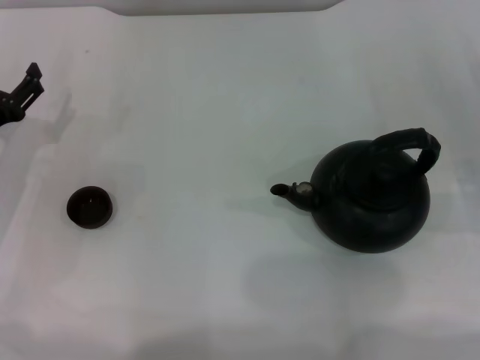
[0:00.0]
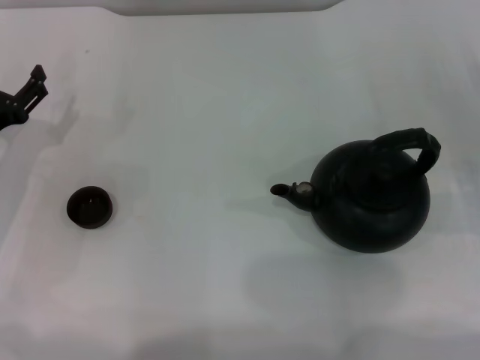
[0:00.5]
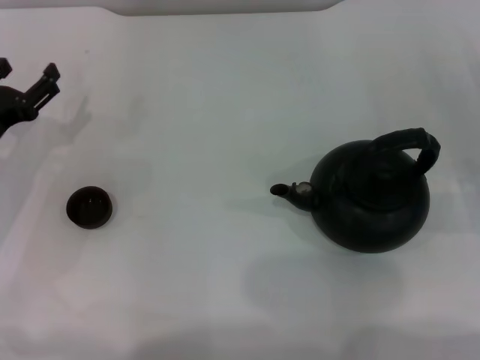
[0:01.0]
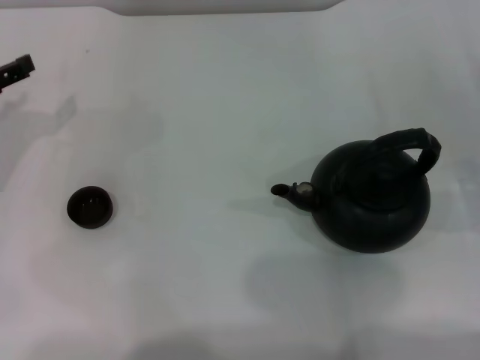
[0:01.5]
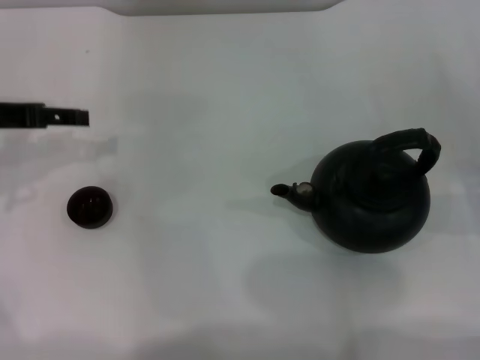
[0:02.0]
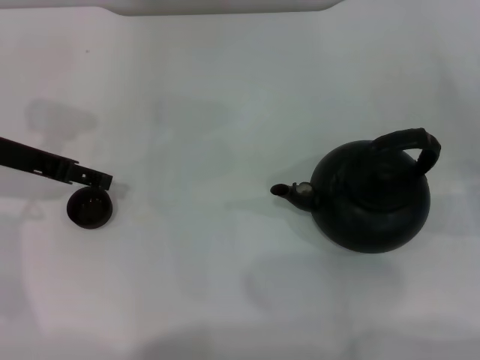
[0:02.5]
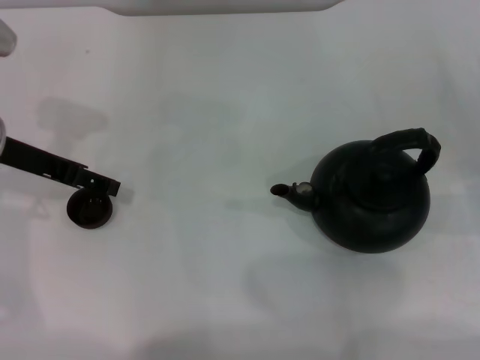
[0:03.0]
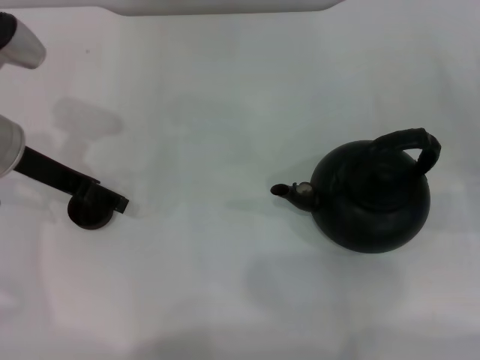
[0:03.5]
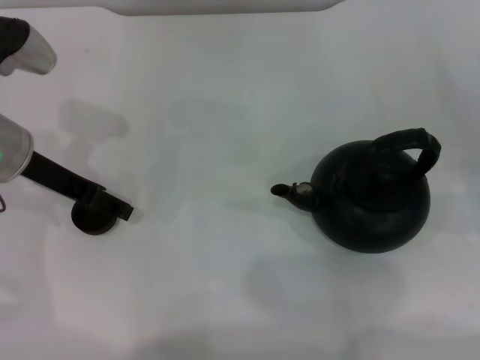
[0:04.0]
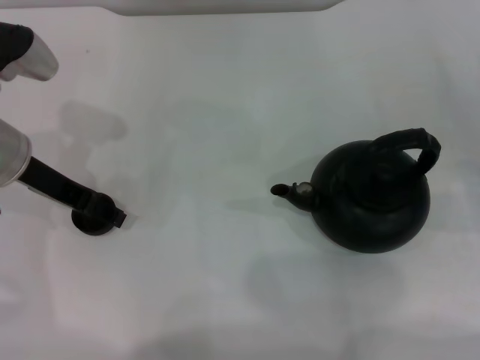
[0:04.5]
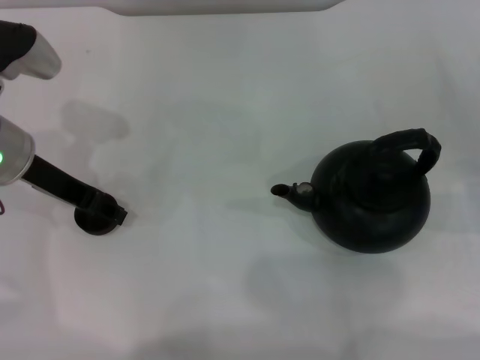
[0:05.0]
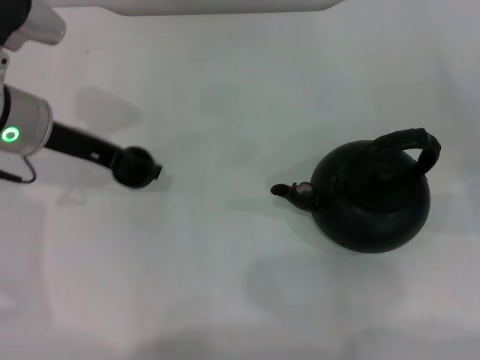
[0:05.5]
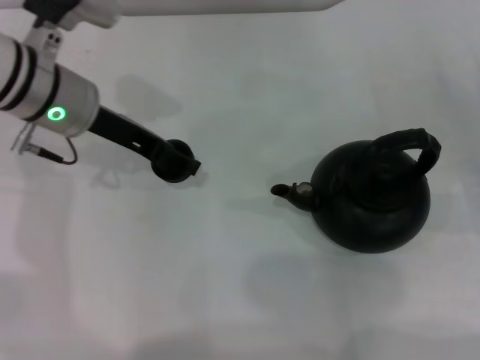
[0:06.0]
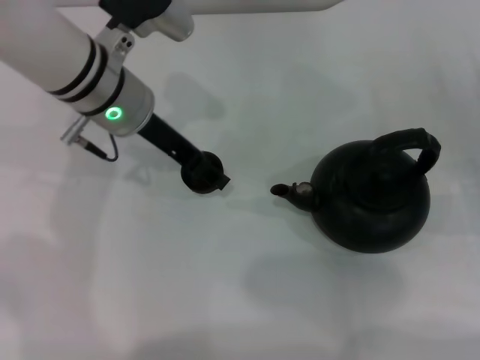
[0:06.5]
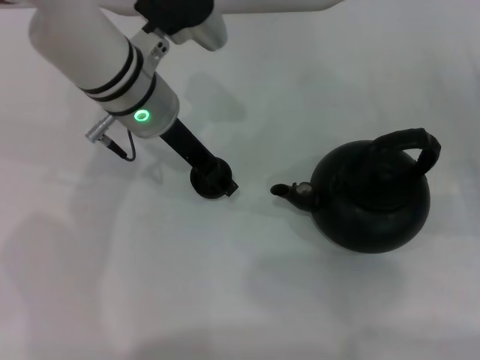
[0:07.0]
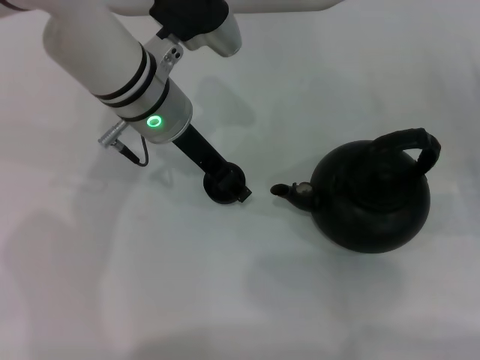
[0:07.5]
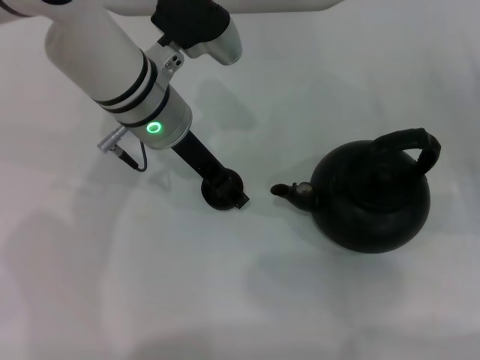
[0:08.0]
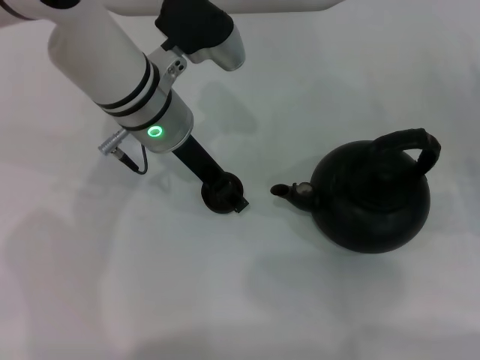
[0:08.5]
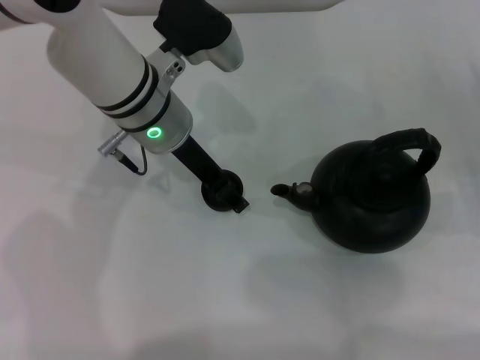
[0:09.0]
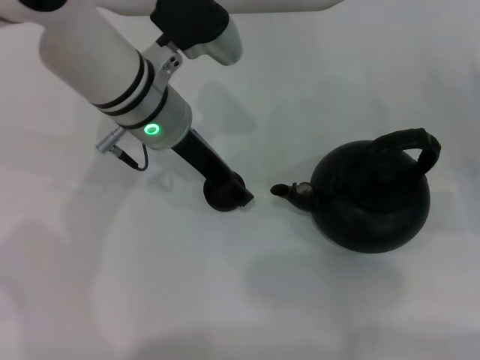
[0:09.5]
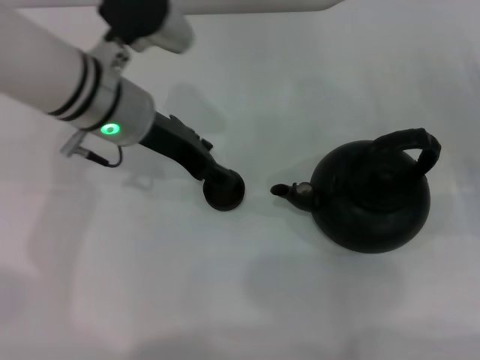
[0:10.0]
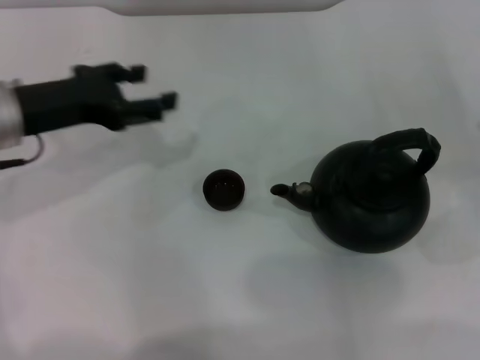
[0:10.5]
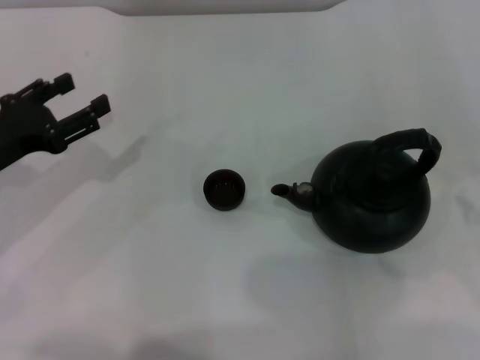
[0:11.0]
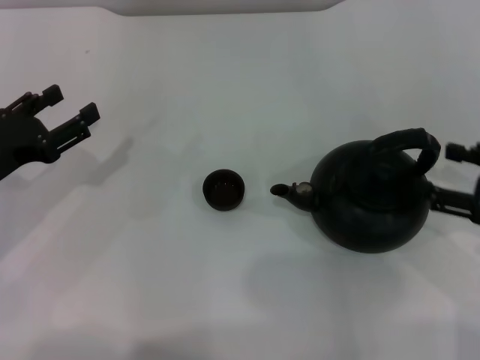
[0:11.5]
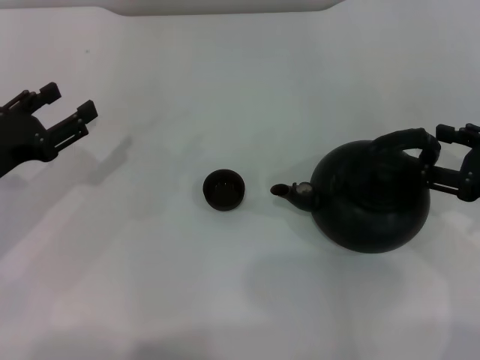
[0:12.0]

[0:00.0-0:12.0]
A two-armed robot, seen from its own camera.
Task of the whole recording: Grasp the handle of the teapot with one hand and pour tea into the teacup.
Step, 0:00.0 to 0:05.0: Pick up the teacup with the left gripper.
Step, 0:05.5 to 0:10.0: Place the teacup in the center of view with the left gripper.
0:00.0 to 0:02.0: The left gripper moves upward, approximately 10 cm.
0:02.0 to 0:04.0: The left gripper goes about 5 cm to the right.
0:04.0 to 0:06.0: The left gripper moves to the right, approximately 5 cm, and closes its fingers.
0:06.0 to 0:08.0: The left gripper is displaced to the right by approximately 10 cm.
0:08.0 to 0:10.0: The grippers make only small movements.
0:10.0 to 0:12.0: The right gripper is displaced upward by roughly 5 cm; the left gripper heads to the left, backward and downward, covering about 20 cm.

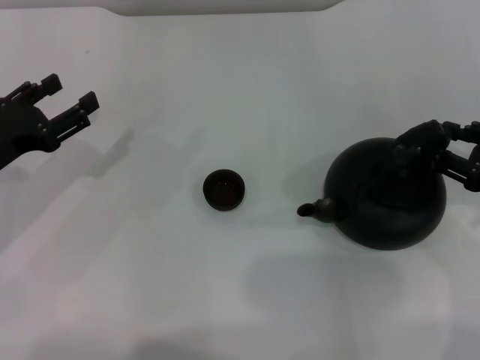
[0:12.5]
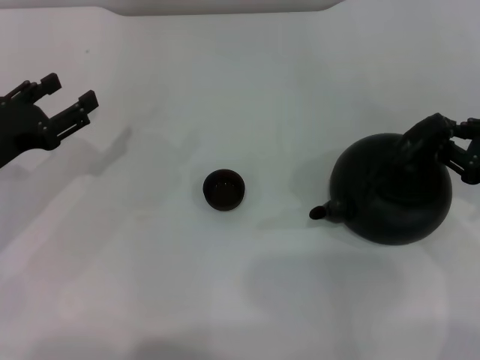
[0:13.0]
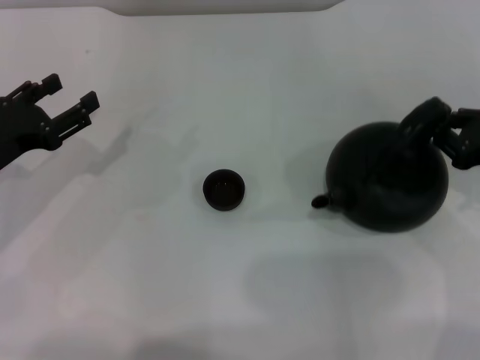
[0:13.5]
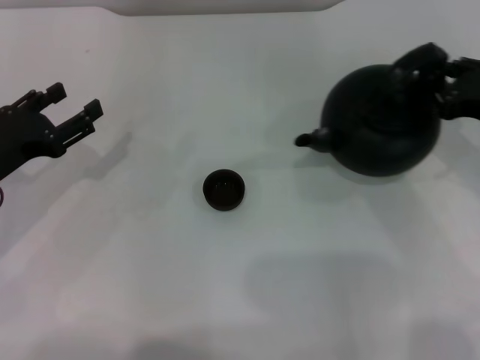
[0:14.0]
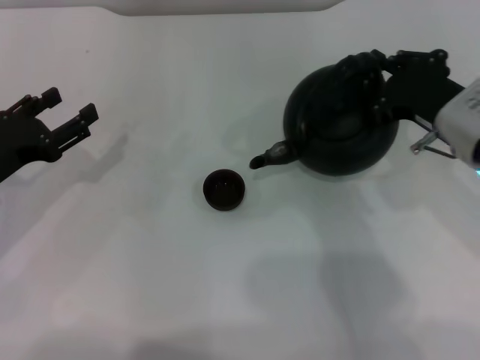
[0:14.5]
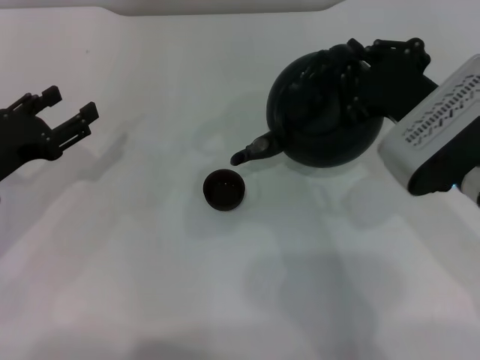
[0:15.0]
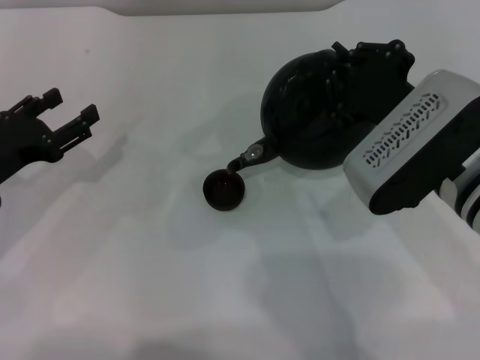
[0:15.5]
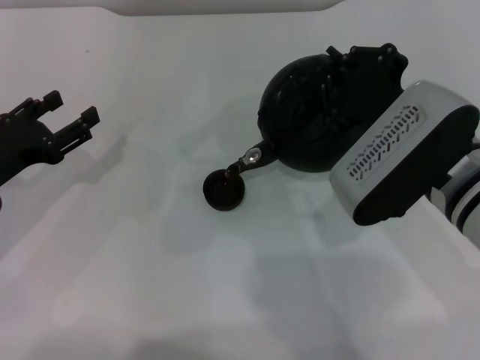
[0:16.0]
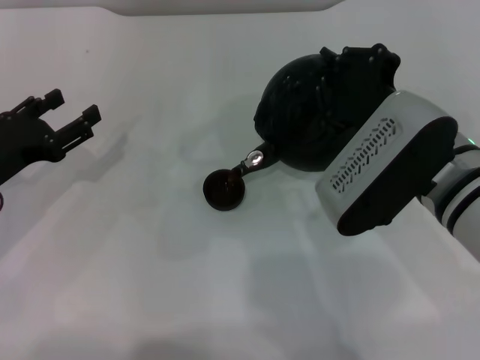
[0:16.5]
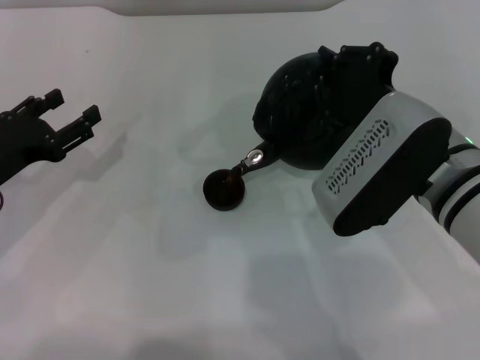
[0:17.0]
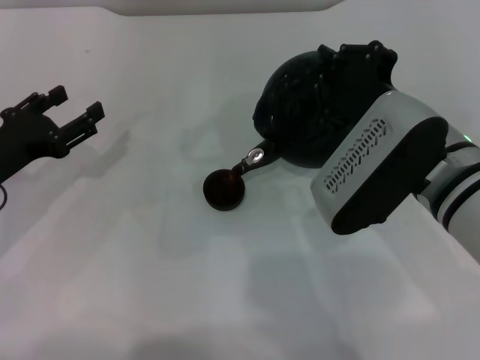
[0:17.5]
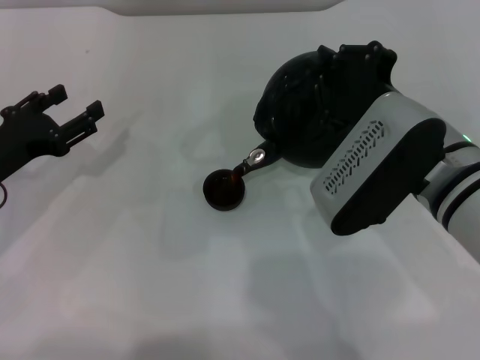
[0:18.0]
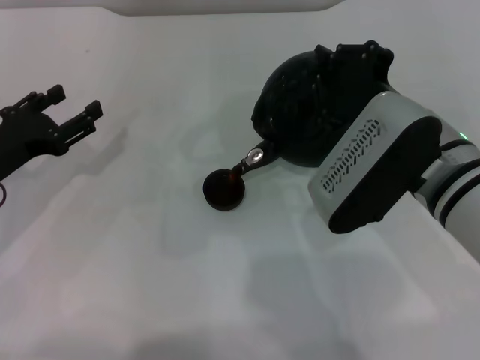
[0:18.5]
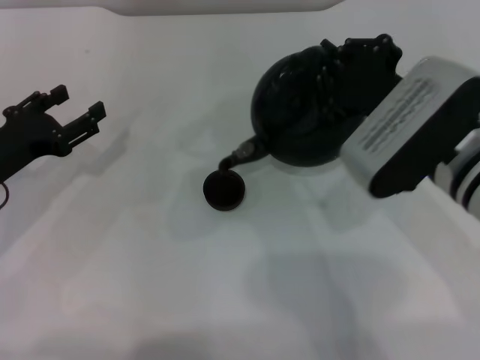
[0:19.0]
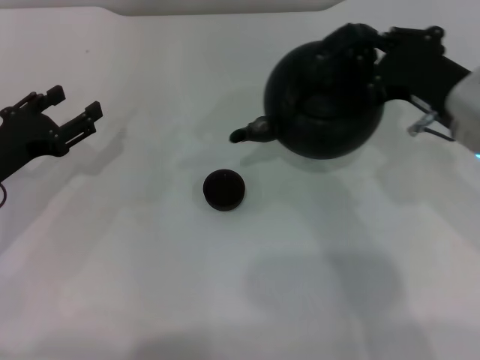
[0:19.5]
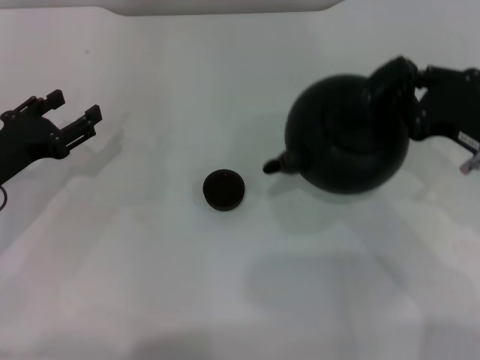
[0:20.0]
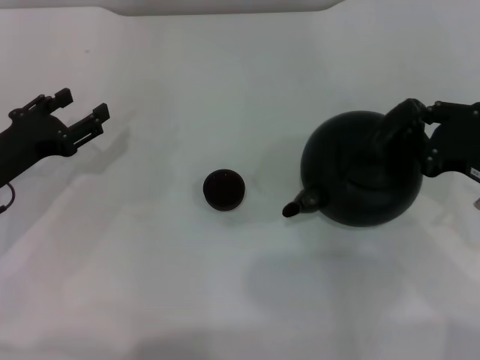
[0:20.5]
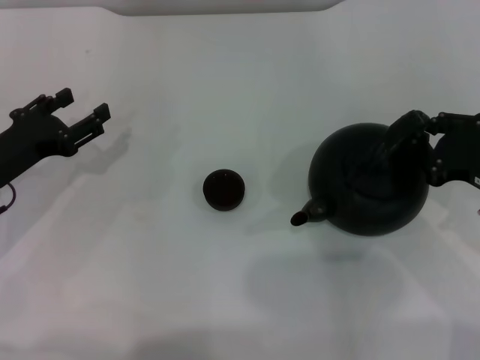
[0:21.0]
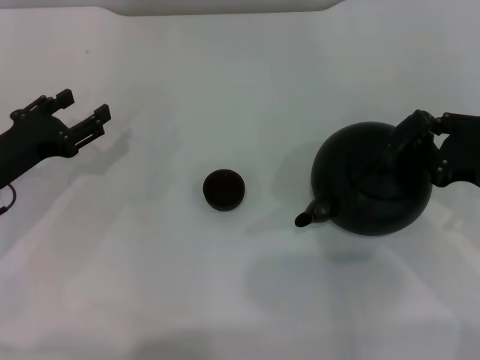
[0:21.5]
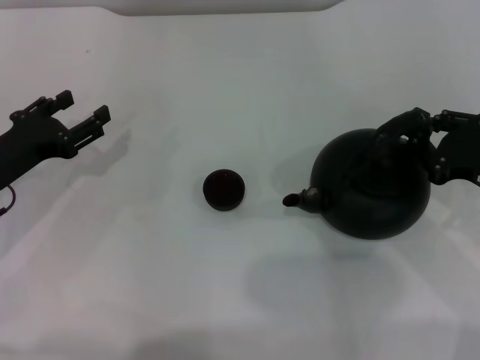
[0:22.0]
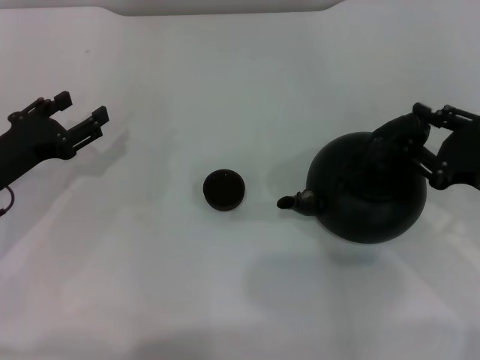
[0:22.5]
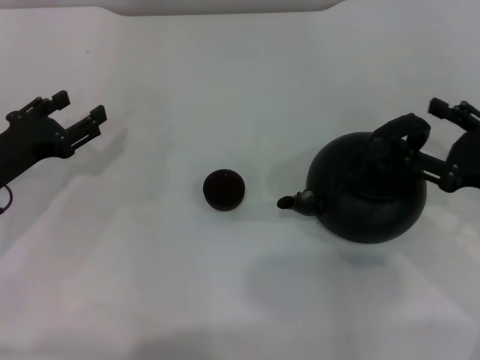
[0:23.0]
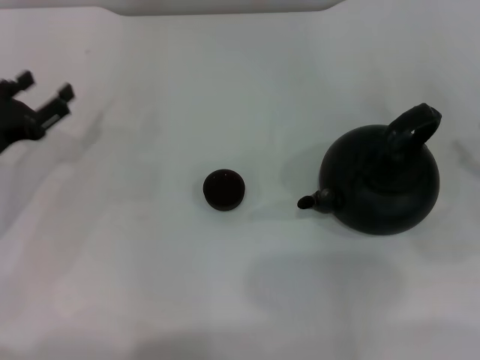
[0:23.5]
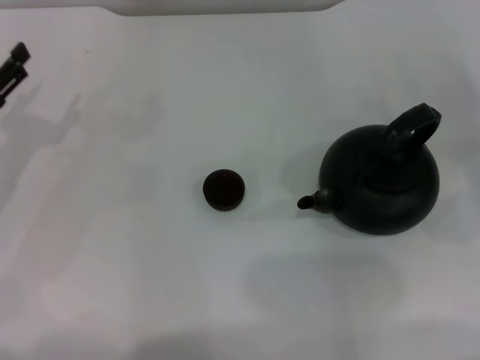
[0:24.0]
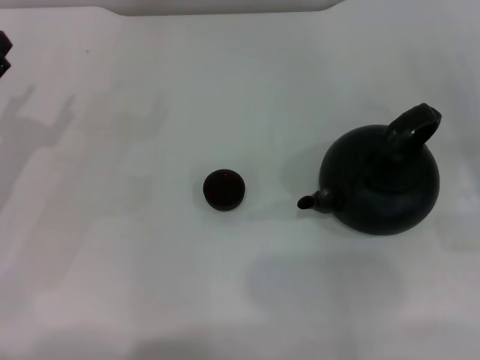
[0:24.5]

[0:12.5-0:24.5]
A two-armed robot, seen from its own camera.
Task of the whole recording: Grasp the handle of the teapot with one hand and pour tea into the teacup.
Step, 0:14.0 to 0:19.0: Pour tea into the teacup with the right gripper.
Step, 0:19.5 to 0:23.0: Put down the teapot with the right gripper.
0:12.5 to 0:14.5: The right gripper goes roughly 10 cm to the left, and closes its fingers.
0:14.5 to 0:16.5: The right gripper goes some 5 cm to the left.
0:16.5 to 0:18.5: Both grippers stay put.
0:18.5 to 0:20.5: The right gripper travels to the right by about 15 cm.
0:20.5 to 0:22.5: There are only small adjustments of the grippers.
0:22.5 to 0:24.5: The right gripper goes about 10 cm to the right, and opens.
